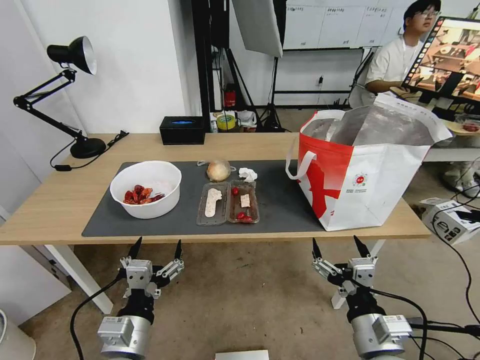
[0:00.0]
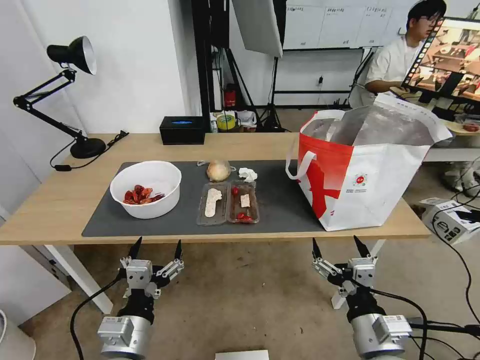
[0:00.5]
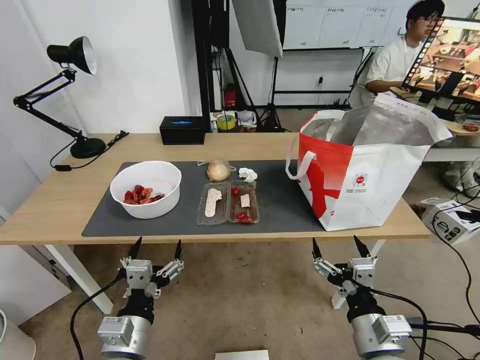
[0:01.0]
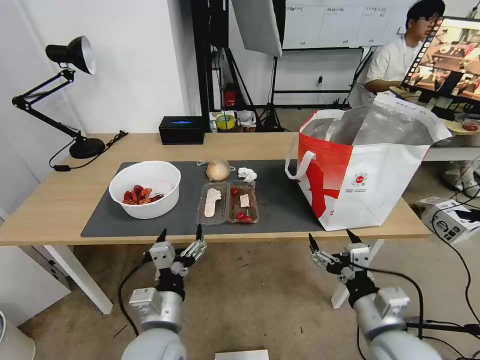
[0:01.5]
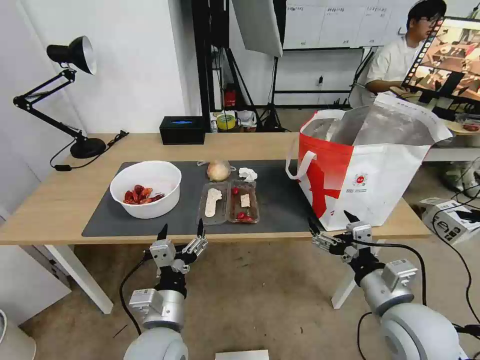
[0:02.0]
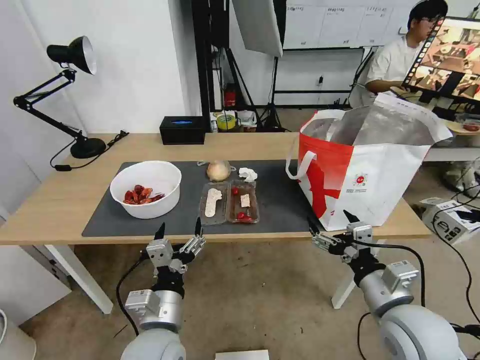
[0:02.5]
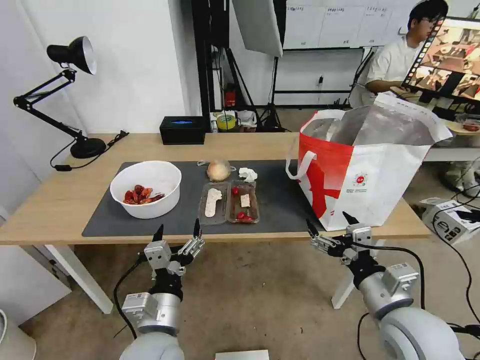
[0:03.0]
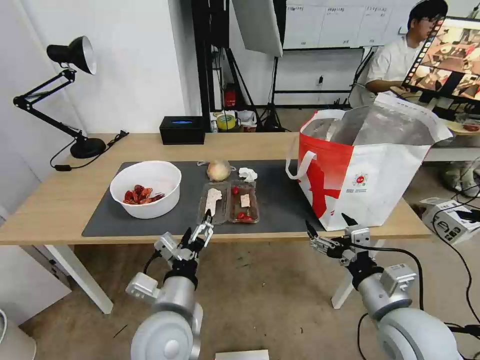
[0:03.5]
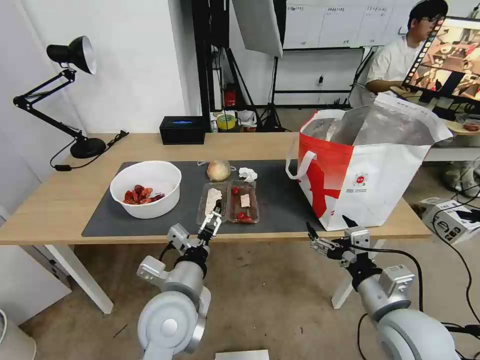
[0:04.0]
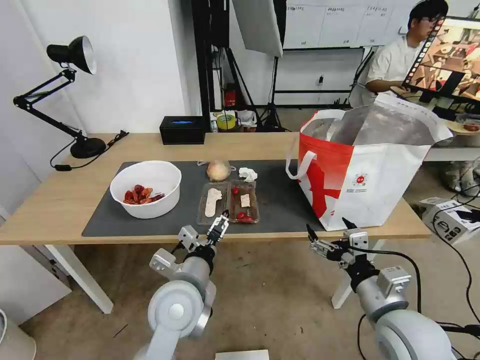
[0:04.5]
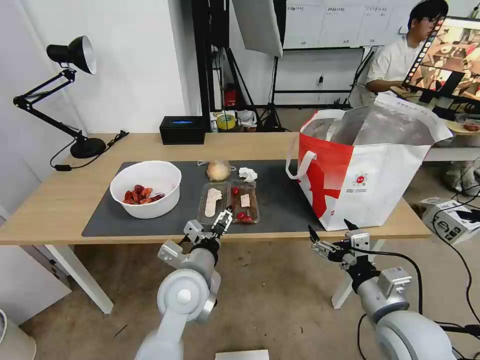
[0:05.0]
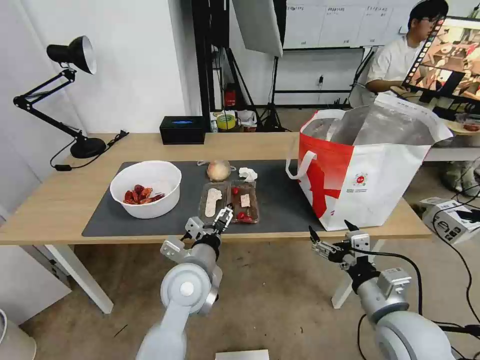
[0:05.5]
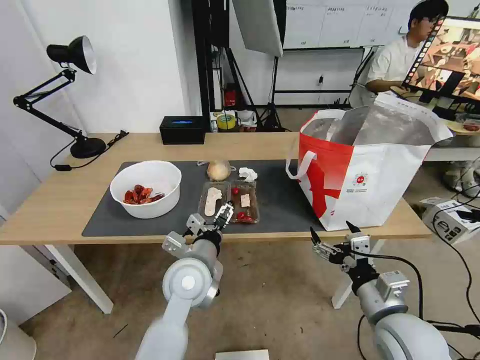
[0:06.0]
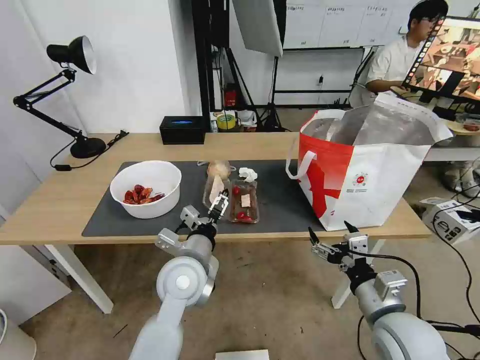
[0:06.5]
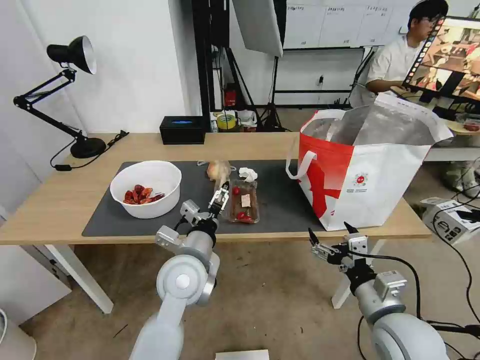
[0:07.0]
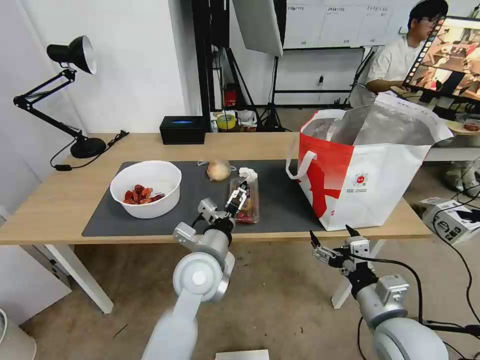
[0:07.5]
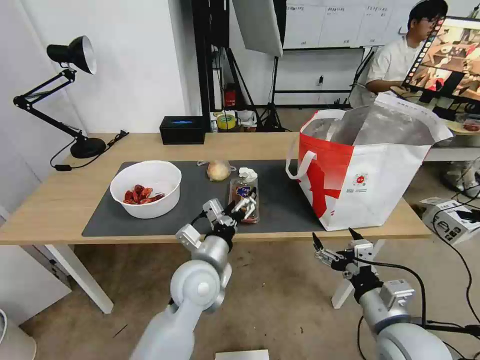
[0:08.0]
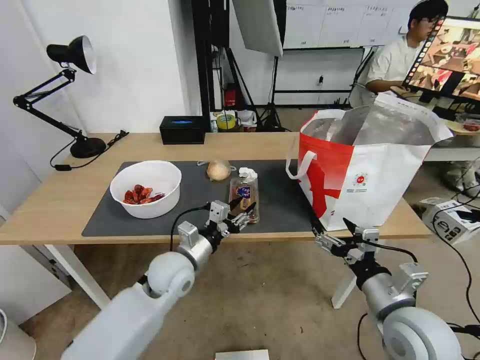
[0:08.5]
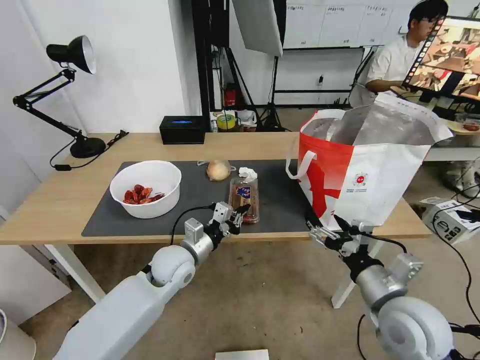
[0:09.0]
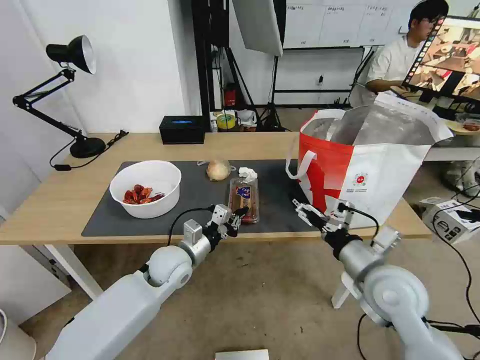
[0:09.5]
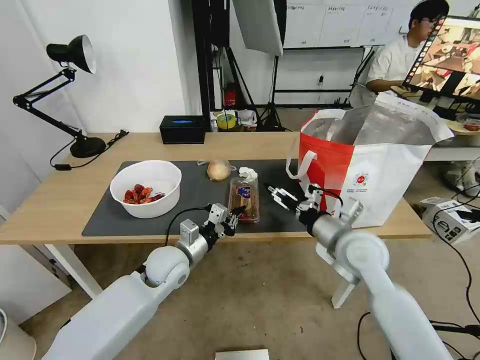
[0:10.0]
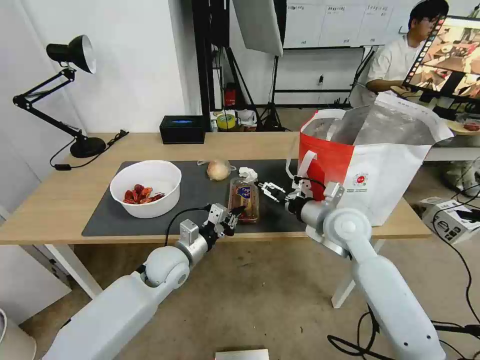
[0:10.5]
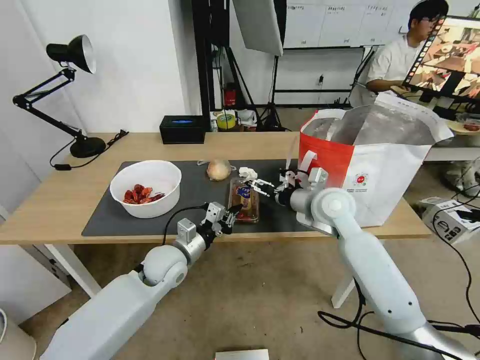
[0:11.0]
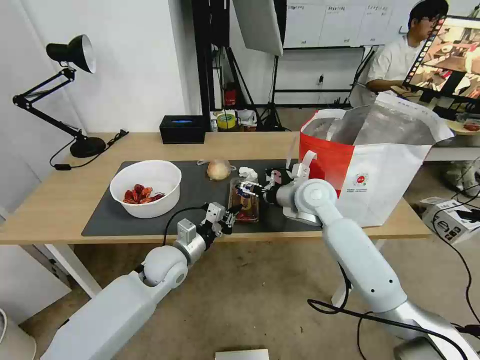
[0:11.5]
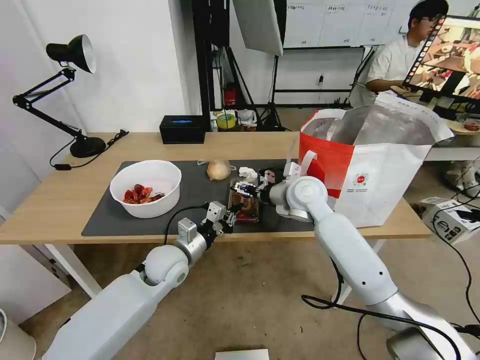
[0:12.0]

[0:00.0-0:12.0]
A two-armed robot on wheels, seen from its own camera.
Task of the whole recording: Pick up the trash from the table and place it into the takeout bag.
0:02.0 to 0:04.0: The left gripper shifts by about 5 cm.
0:04.0 to 0:06.0: The left gripper travels forward by roughly 5 cm.
0:08.0 to 0:10.0: The left gripper heads to the left, forward and downward, covering roughly 10 cm, and closes its fingers. Meanwhile the right gripper heads forward, covering some 15 cm.
0:10.0 to 0:12.0: The right gripper shifts approximately 15 cm forward and to the left.

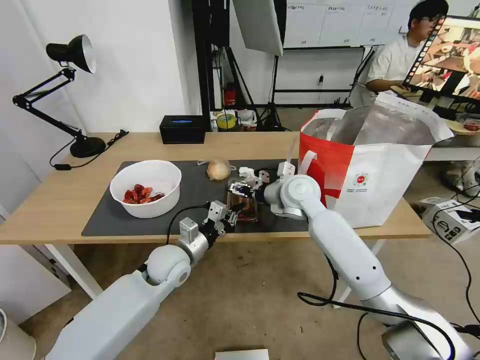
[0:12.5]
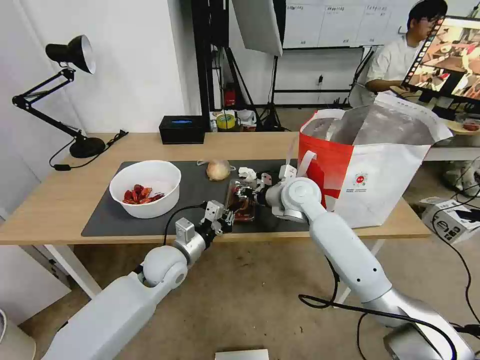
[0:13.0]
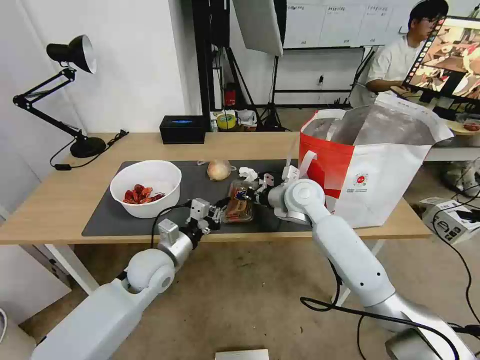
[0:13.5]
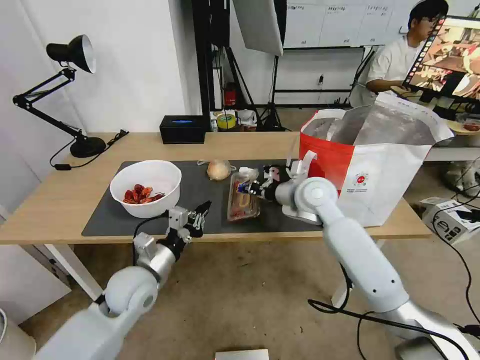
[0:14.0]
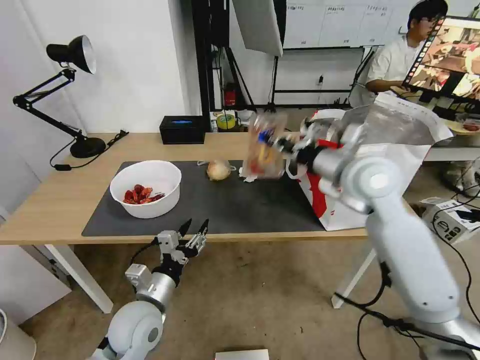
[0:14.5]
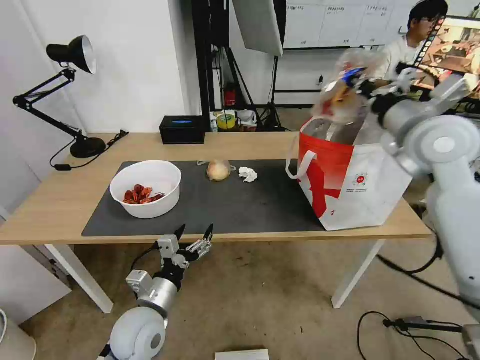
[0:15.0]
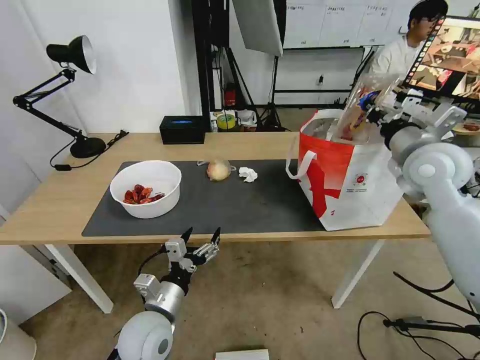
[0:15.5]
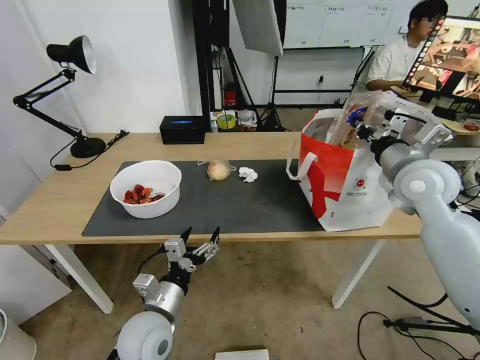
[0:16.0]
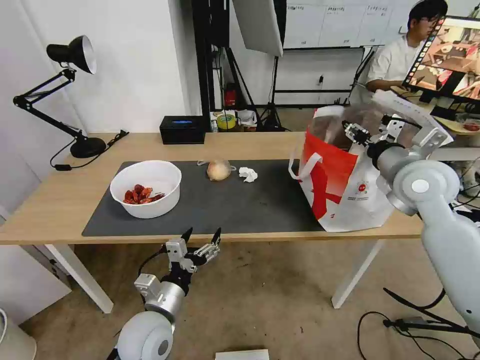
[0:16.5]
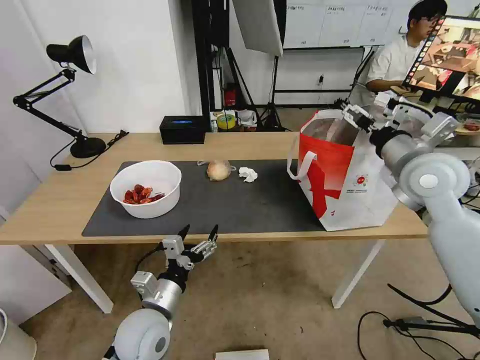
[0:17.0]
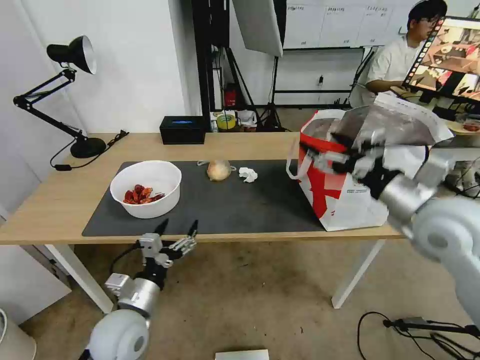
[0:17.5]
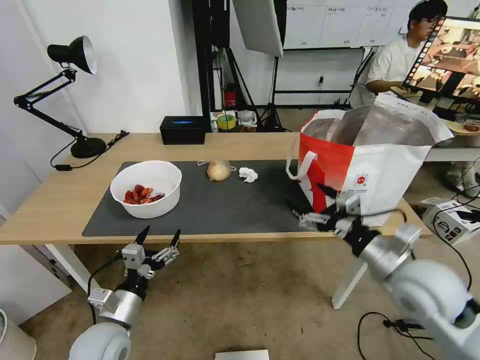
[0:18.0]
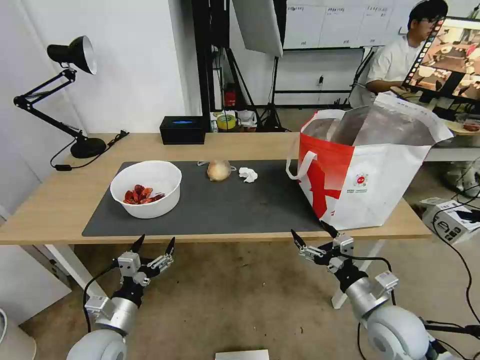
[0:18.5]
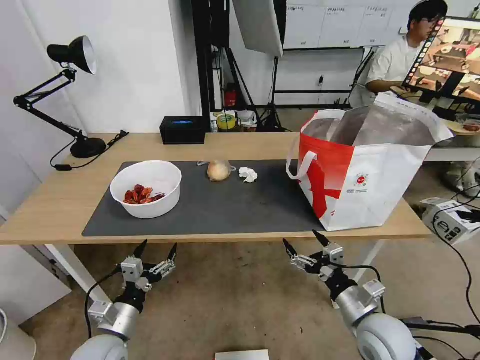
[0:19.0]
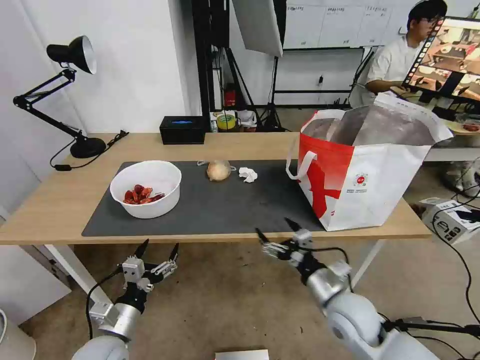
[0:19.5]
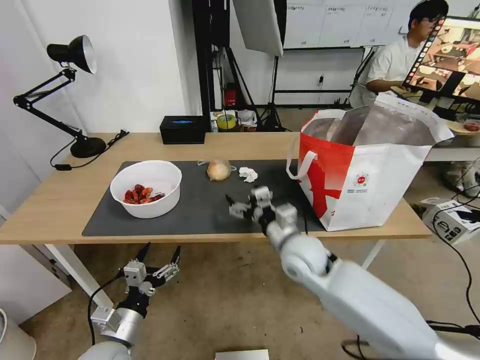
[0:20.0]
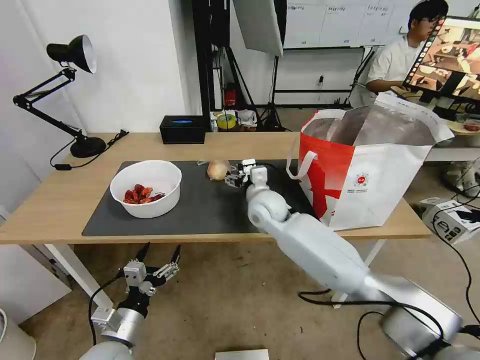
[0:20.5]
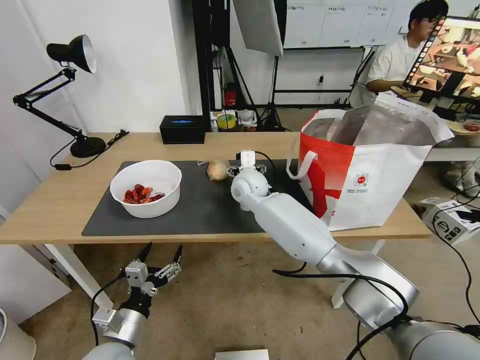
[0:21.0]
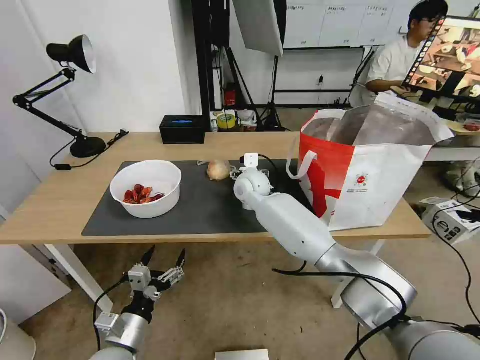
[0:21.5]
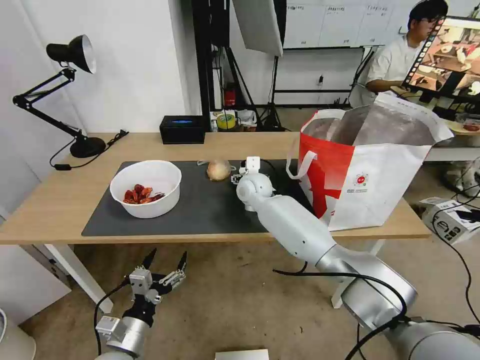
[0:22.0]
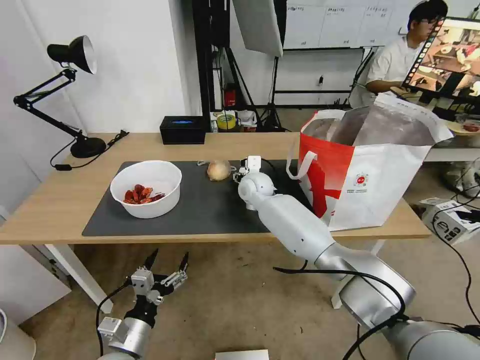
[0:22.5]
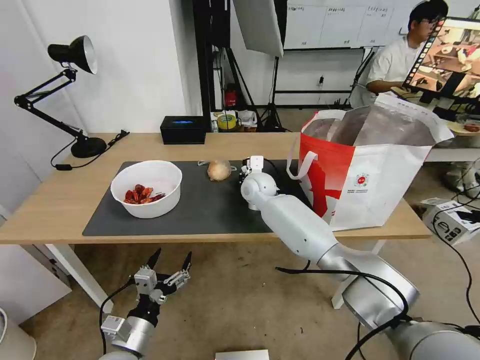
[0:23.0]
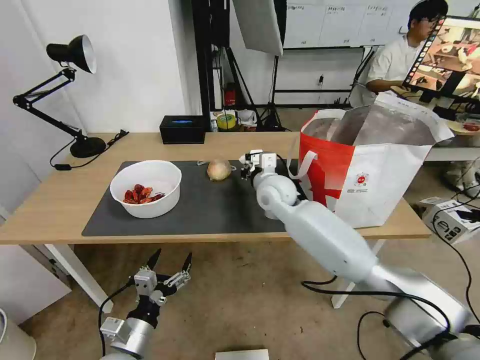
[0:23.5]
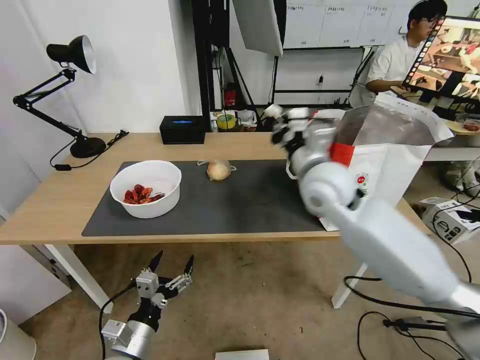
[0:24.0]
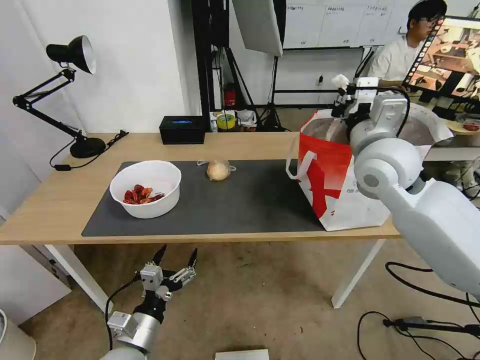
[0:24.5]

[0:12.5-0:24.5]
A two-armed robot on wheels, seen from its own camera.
Task of the whole recording: Pick up the trash from the table and place it into the takeout bag.
0:12.5 to 0:14.5: The left gripper travels backward by approximately 10 cm, and opens up. Meanwhile the right gripper goes roughly 15 cm upward, to the right and backward, and closes its fingers.
0:14.5 to 0:16.5: The left gripper opens its fingers. Meanwhile the right gripper shifts roughly 10 cm to the right, and opens up.
0:16.5 to 0:18.5: The left gripper is displaced to the left by about 10 cm. The right gripper goes about 30 cm downward and backward, and opens its fingers.
0:18.5 to 0:20.5: The right gripper is displaced forward and to the left by about 35 cm.
0:20.5 to 0:22.5: The right gripper travels forward by some 10 cm.
0:22.5 to 0:24.5: The right gripper shifts approximately 30 cm to the right, upward and backward, and closes.

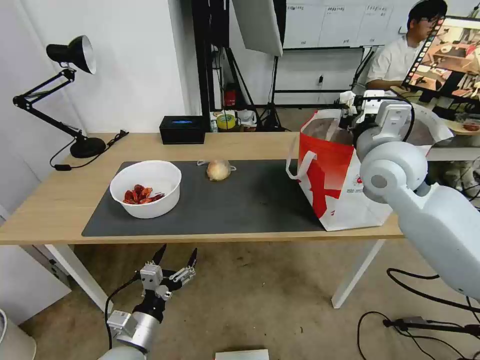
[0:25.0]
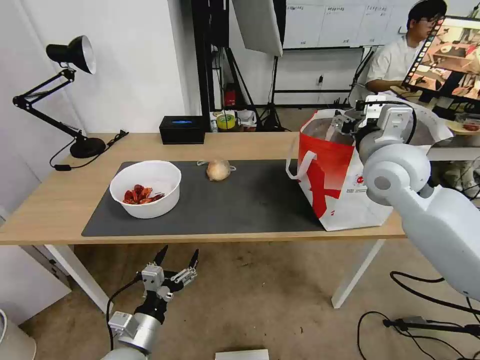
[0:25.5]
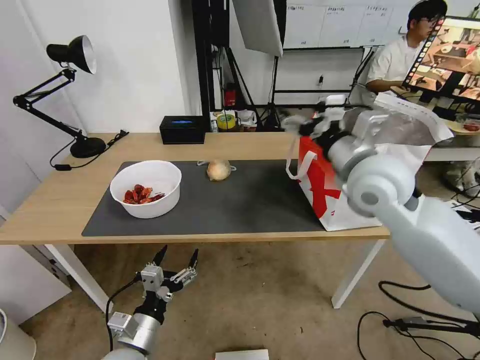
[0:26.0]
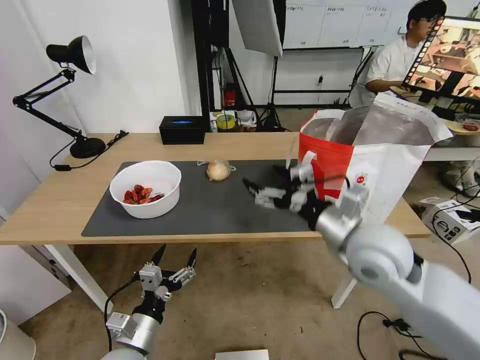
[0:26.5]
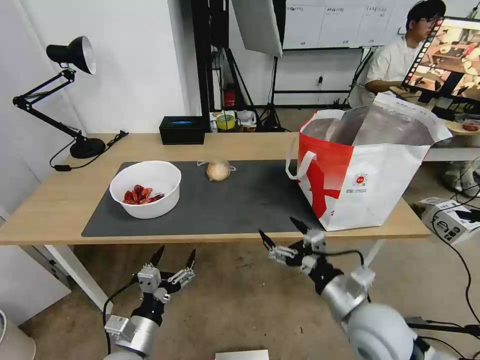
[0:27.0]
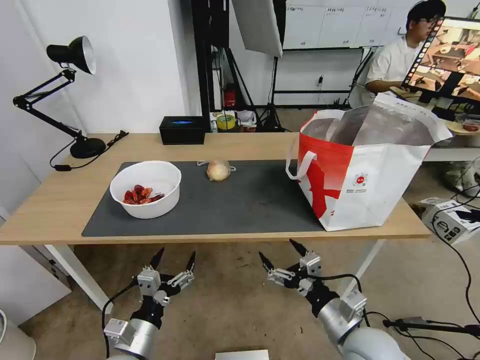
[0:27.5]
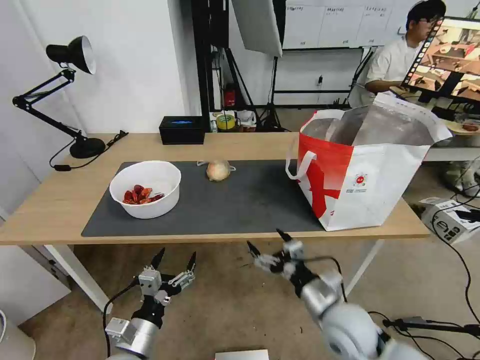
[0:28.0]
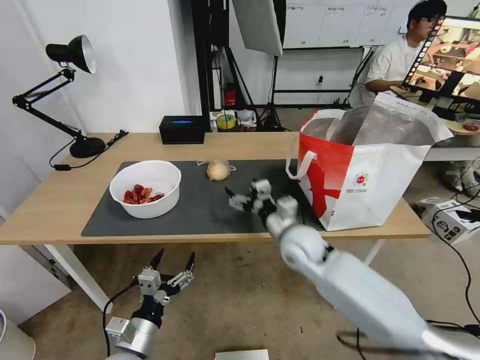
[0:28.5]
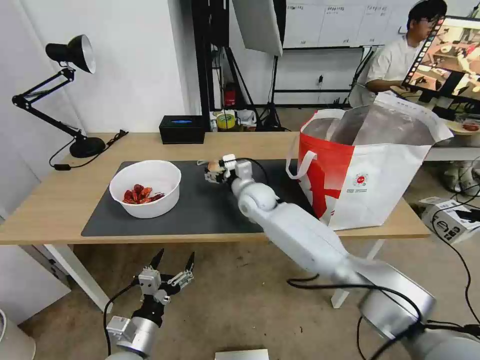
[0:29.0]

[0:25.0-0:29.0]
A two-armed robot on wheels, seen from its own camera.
Task of the whole recording: Pick up the trash from the table and place it into the takeout bag.
0:25.0 to 0:27.0: The right gripper travels downward and backward by about 30 cm, and opens its fingers.
0:27.0 to 0:29.0: The right gripper travels forward and to the left by approximately 35 cm.
